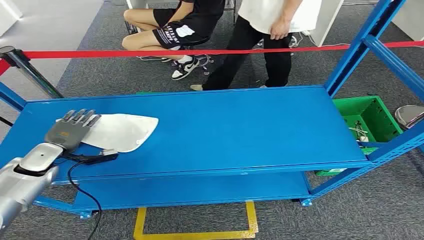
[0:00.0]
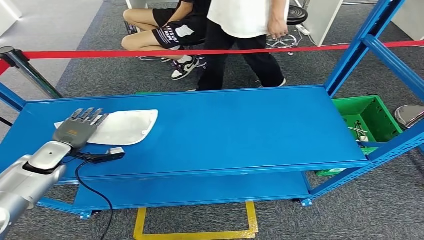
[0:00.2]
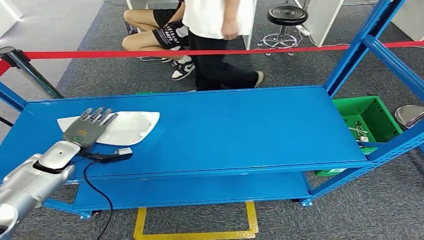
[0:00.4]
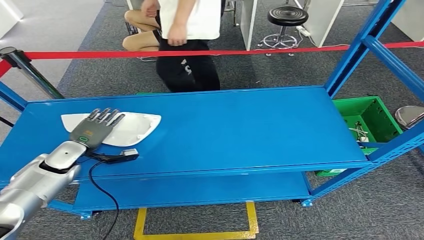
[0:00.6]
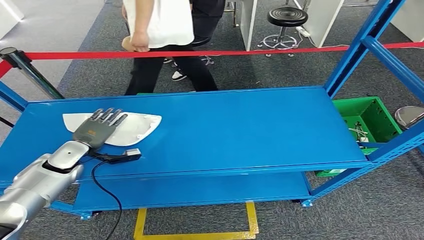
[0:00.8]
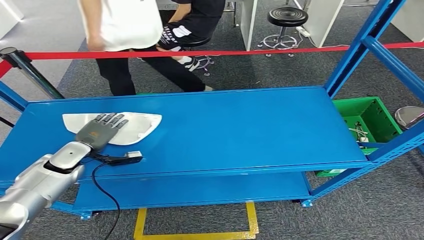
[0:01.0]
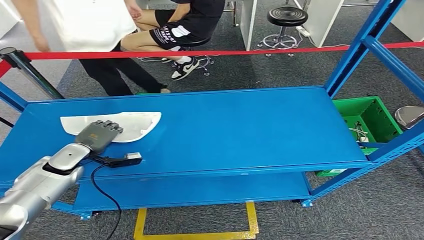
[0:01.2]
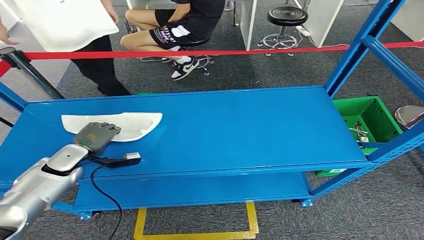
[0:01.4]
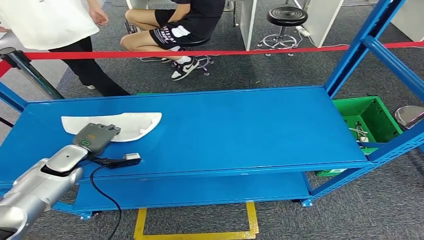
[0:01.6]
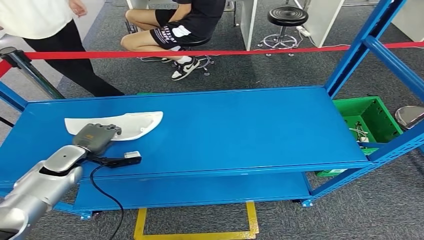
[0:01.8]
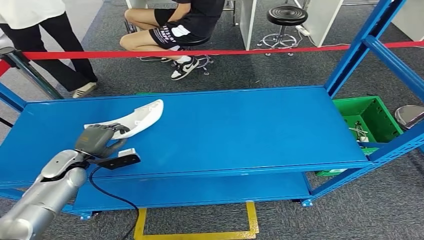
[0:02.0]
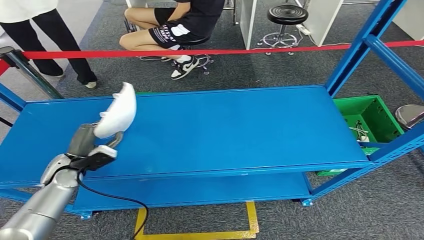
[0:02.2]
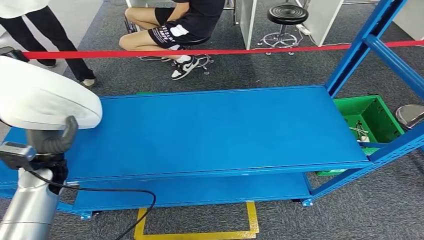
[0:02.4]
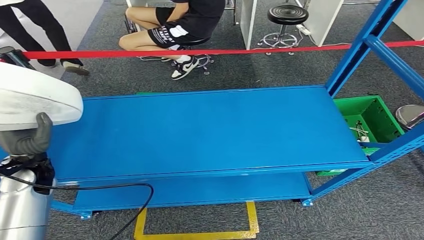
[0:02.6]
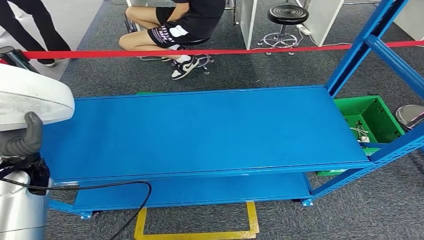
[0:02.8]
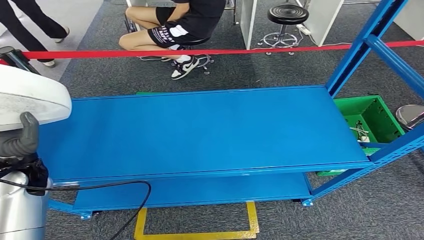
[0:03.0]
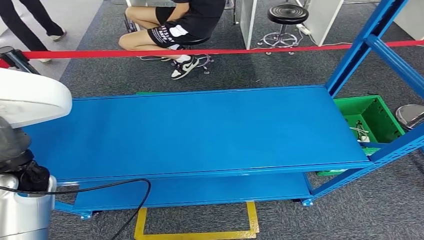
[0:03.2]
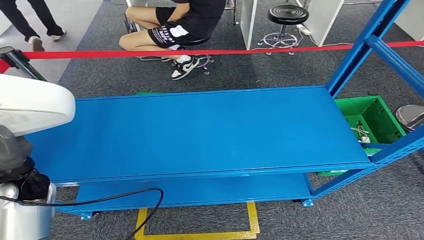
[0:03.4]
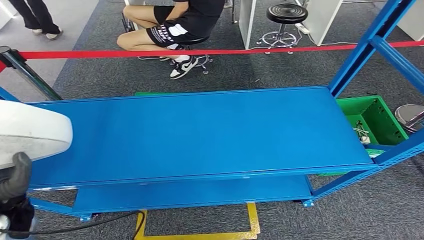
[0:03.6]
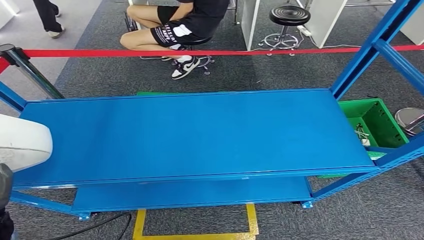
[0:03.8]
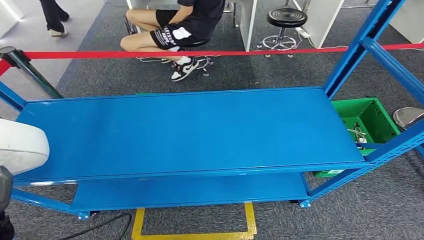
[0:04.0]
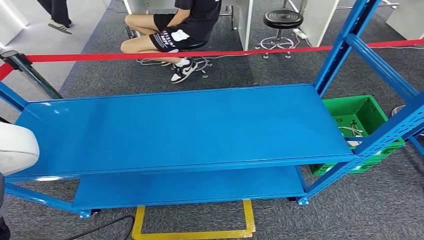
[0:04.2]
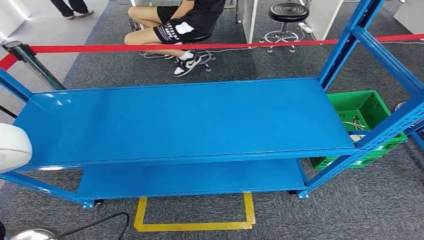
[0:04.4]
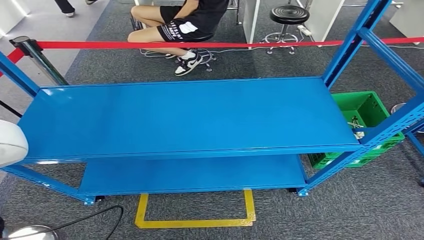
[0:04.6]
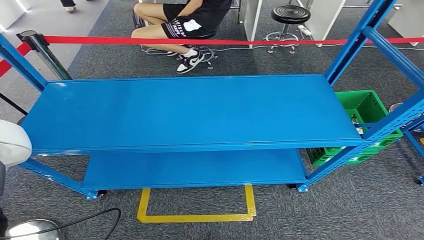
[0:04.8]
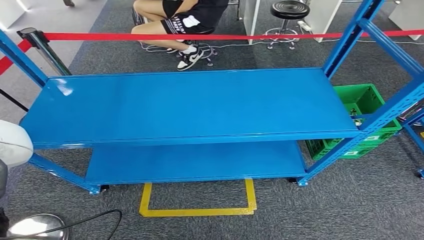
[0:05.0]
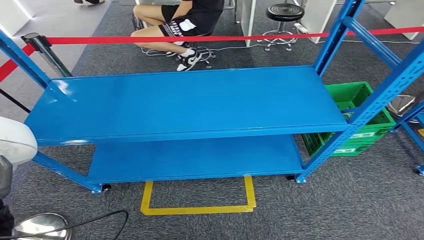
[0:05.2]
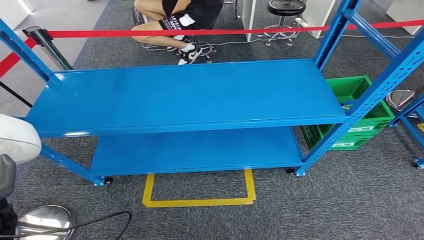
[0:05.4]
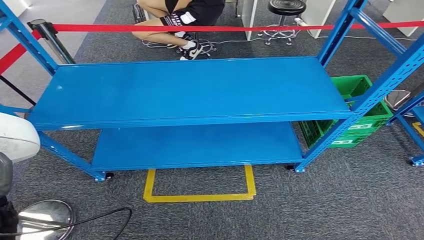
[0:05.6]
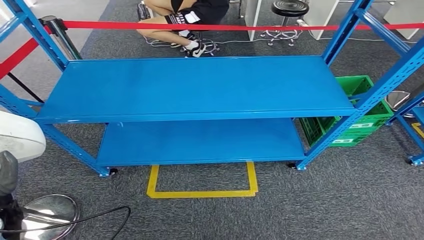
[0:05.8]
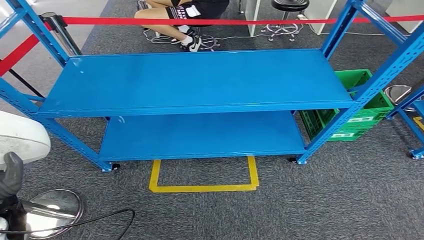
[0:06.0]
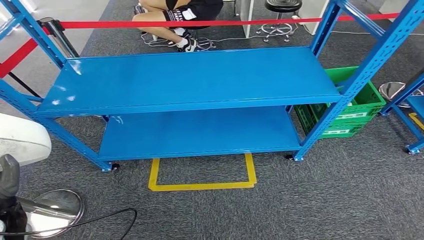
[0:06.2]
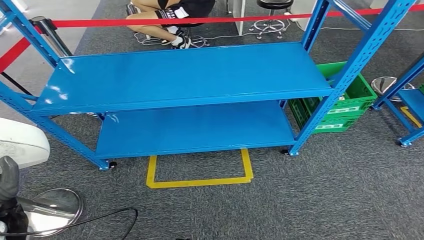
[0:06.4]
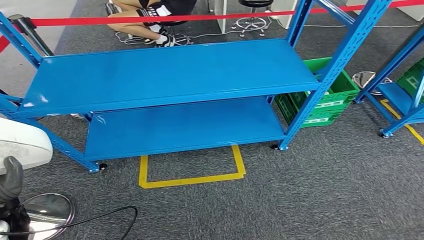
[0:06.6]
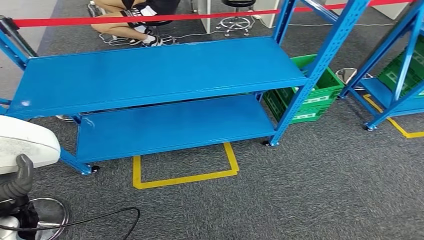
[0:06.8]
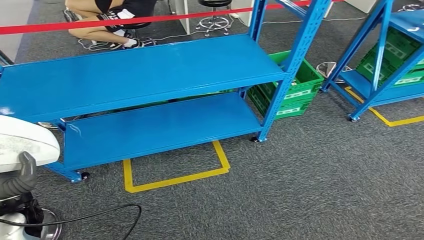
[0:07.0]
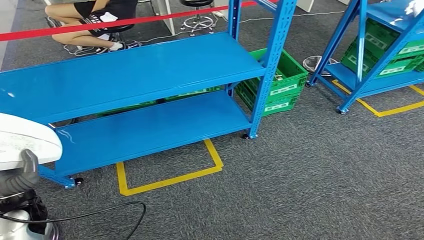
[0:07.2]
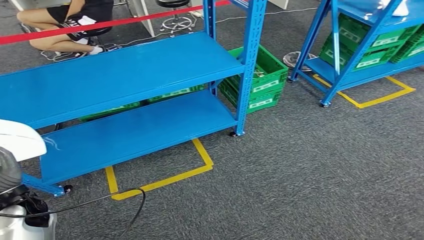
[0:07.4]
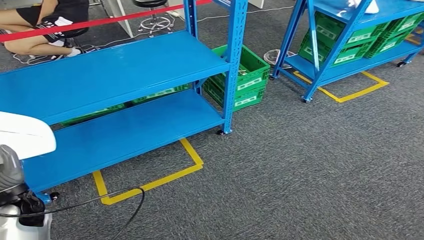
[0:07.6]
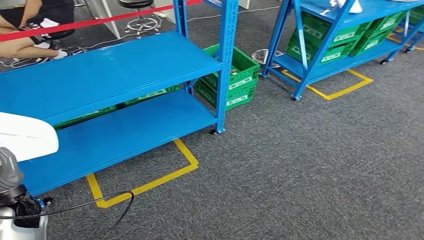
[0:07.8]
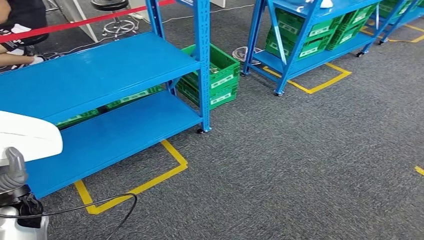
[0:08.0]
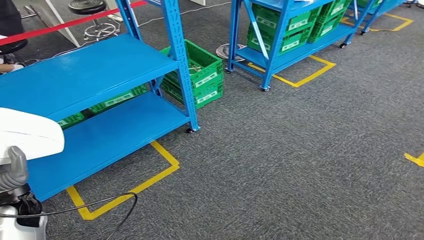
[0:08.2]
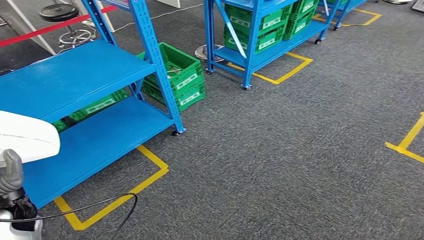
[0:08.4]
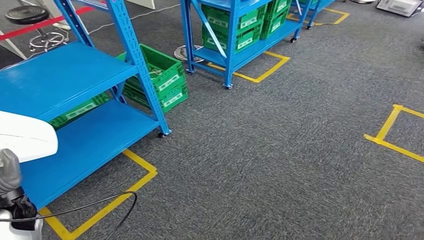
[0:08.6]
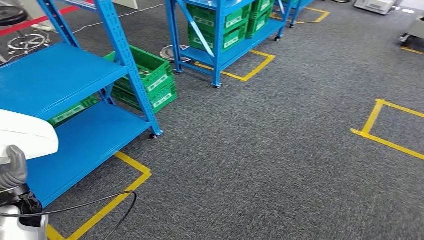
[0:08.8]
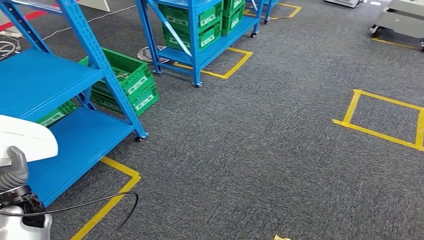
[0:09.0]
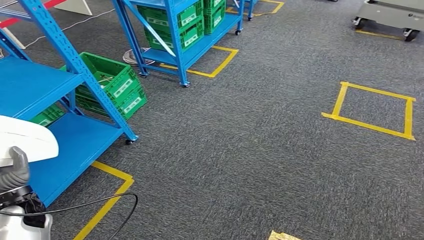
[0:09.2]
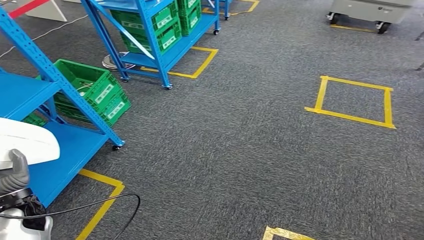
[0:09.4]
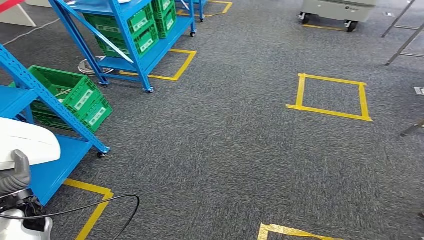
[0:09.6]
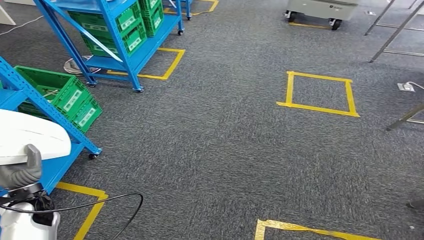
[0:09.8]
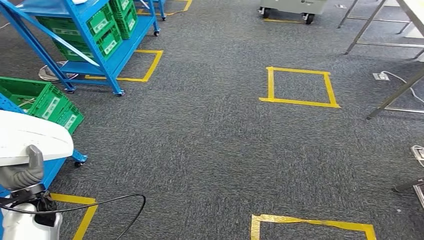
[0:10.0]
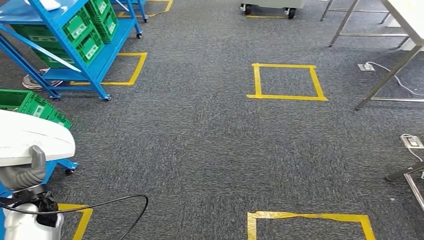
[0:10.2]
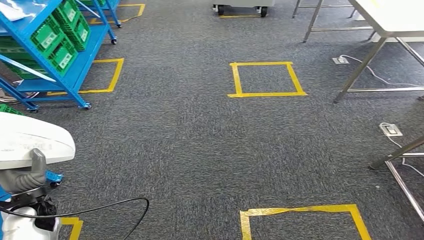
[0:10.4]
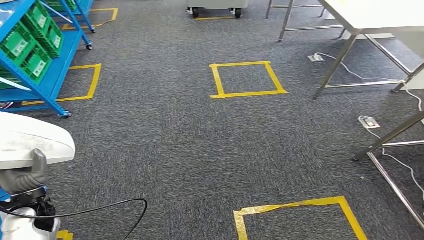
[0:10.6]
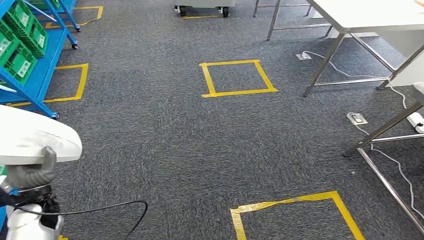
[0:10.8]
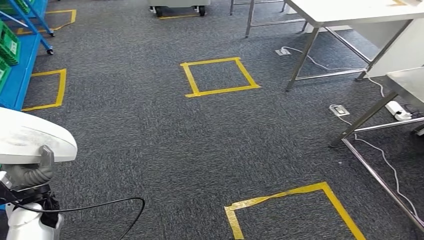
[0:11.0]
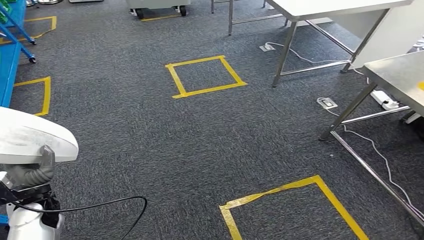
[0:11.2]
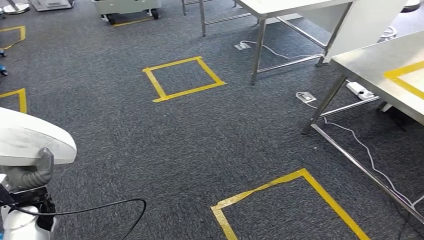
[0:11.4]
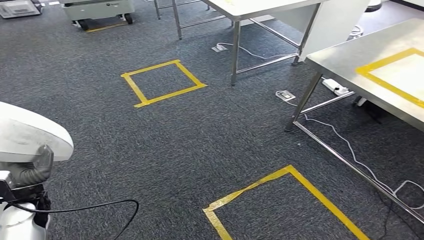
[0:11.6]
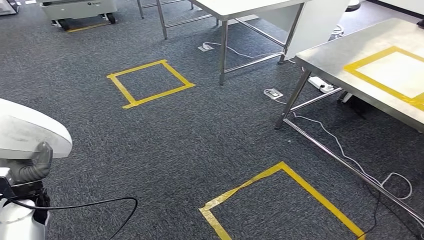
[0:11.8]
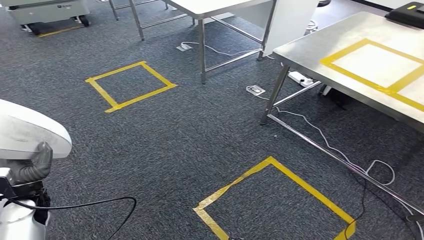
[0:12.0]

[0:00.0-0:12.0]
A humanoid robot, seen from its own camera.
Step, 0:00.0 to 0:05.4: Pick up the small component from the shelf.

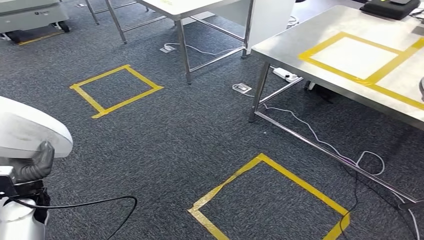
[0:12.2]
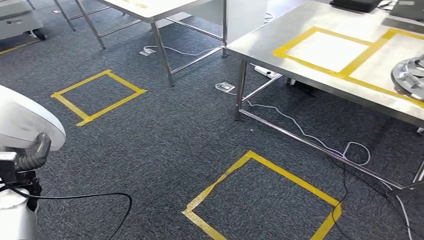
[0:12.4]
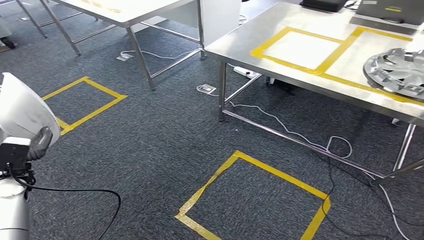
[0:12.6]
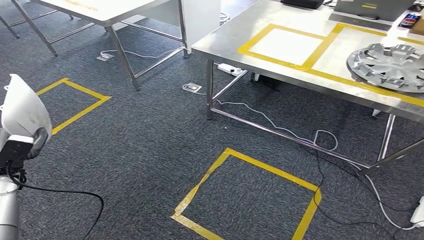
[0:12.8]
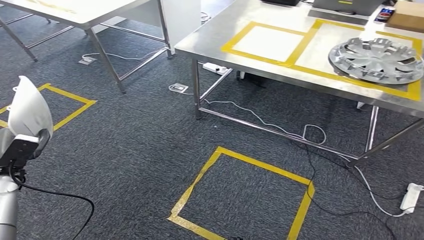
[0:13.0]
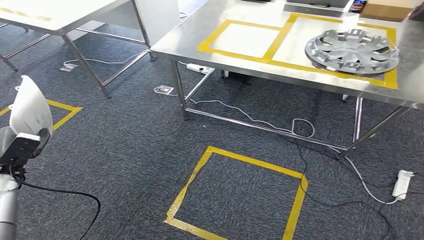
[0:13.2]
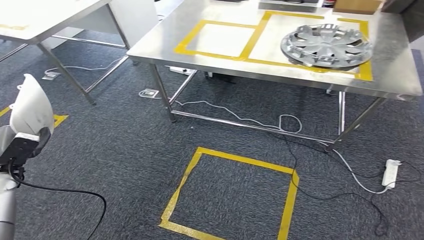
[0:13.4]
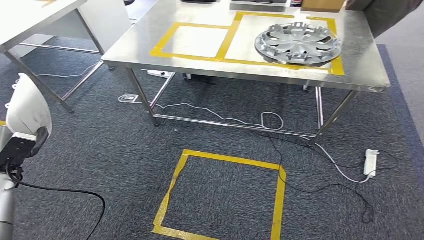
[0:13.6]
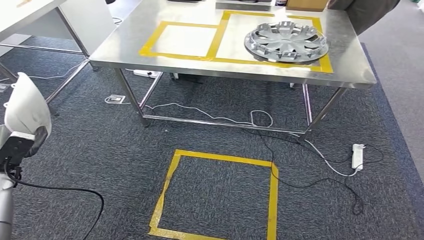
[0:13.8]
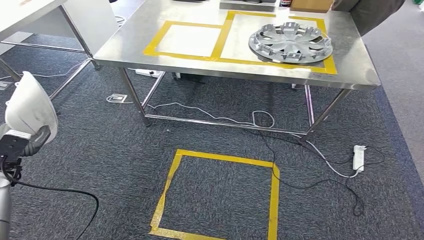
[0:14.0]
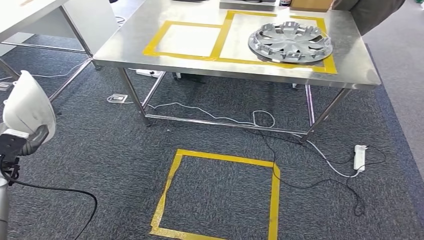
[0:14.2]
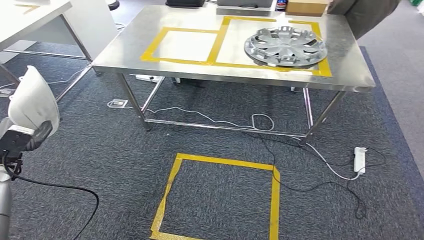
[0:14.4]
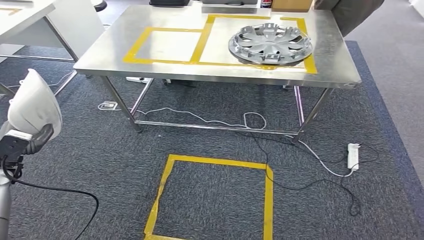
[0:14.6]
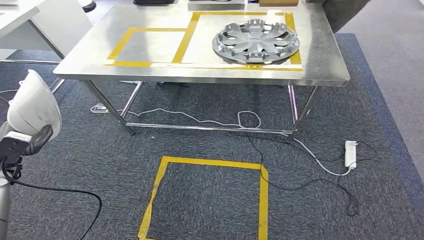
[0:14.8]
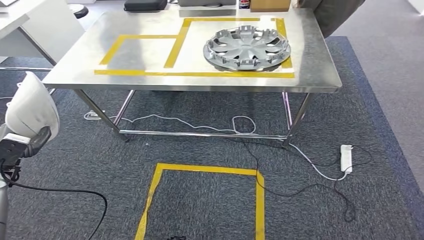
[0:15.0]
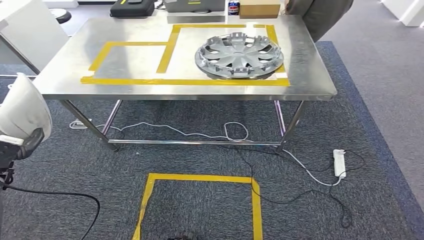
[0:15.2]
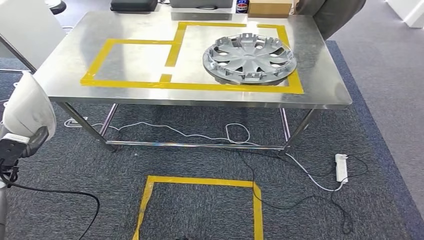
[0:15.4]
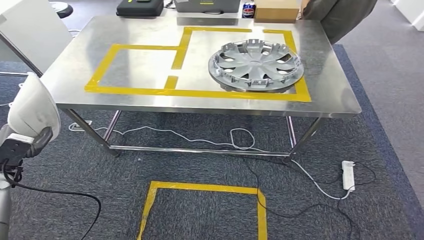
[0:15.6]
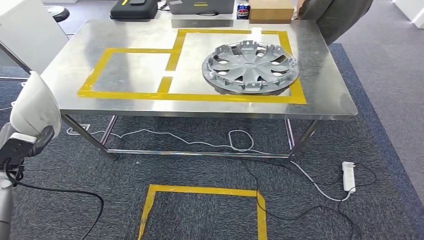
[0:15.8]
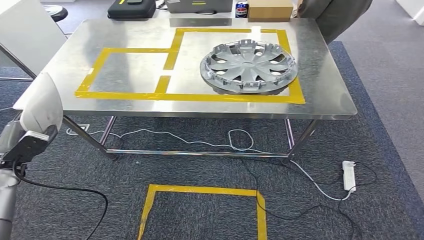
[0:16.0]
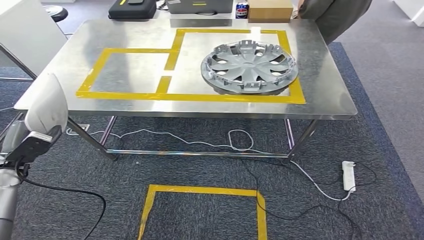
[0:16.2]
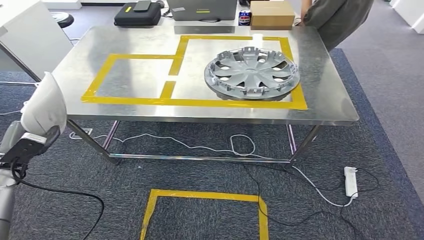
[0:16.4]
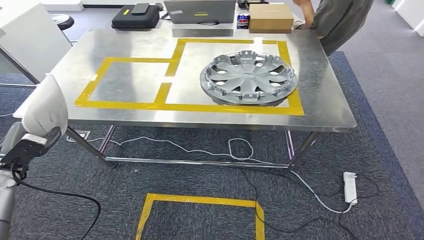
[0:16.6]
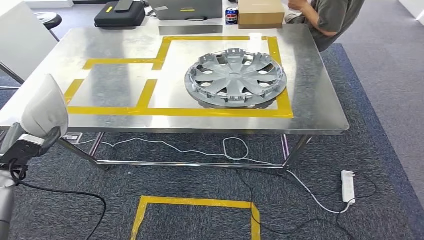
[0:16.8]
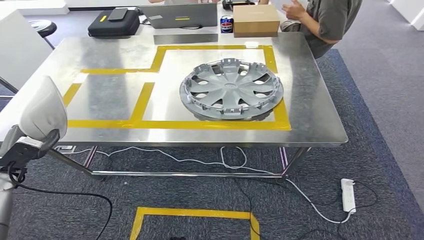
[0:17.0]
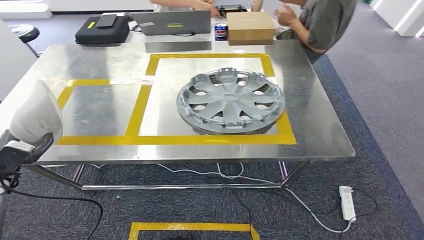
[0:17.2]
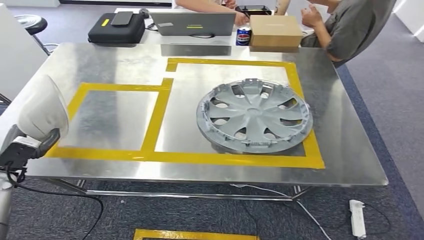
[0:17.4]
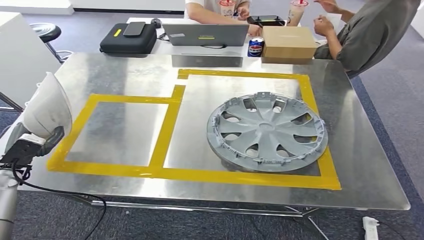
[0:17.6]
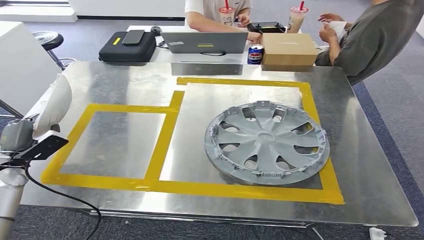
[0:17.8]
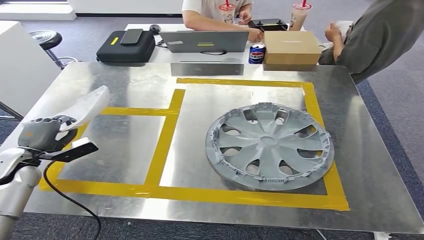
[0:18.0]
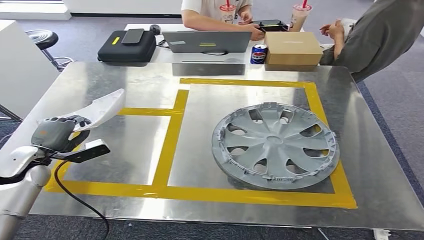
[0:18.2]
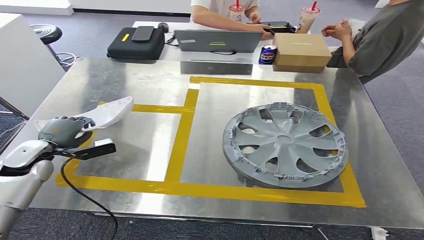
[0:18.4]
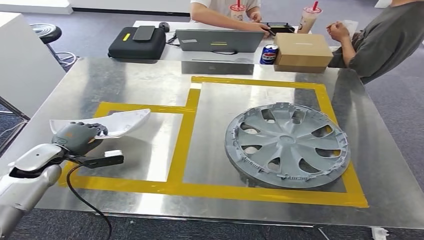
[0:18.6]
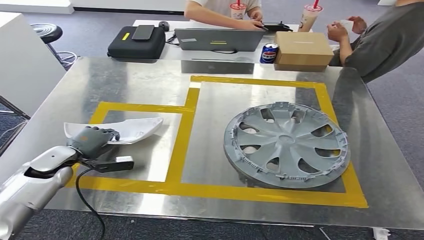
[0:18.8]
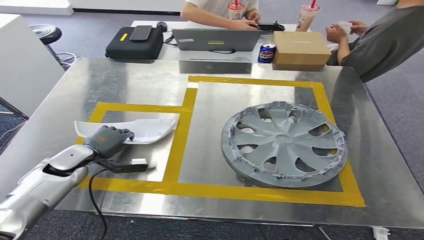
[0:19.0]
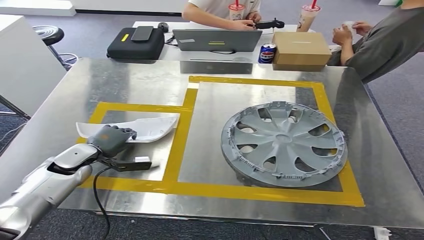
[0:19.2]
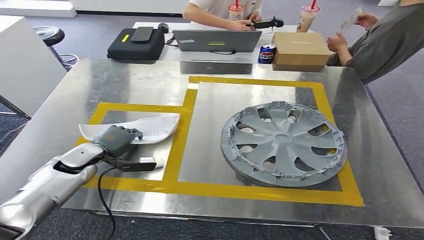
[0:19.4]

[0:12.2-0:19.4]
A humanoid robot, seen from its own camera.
Step, 0:12.2 to 0:18.0: Move the small component to the workbench.
